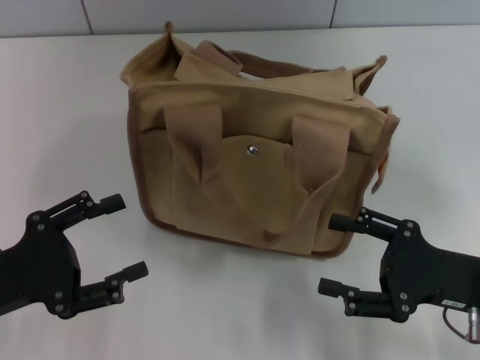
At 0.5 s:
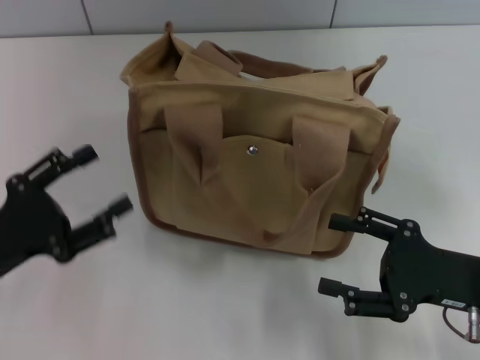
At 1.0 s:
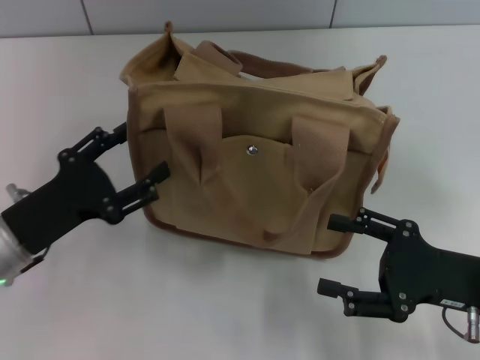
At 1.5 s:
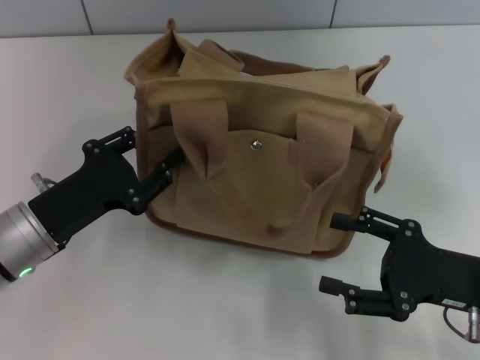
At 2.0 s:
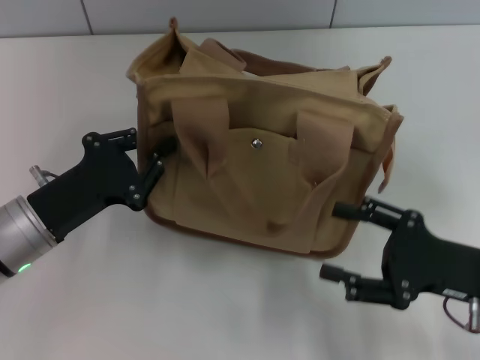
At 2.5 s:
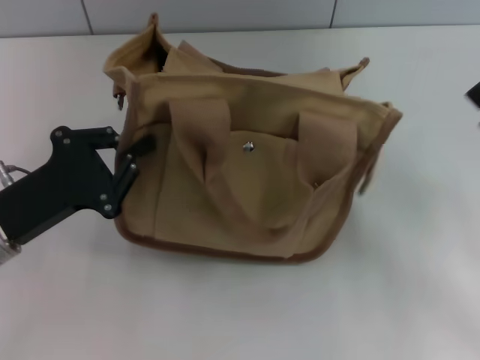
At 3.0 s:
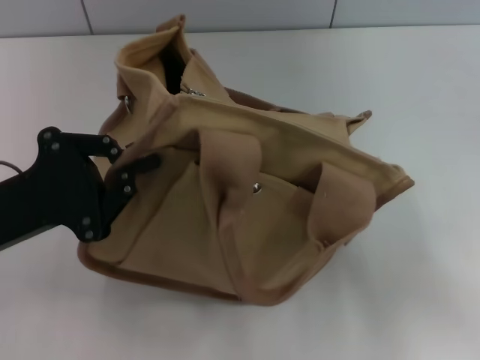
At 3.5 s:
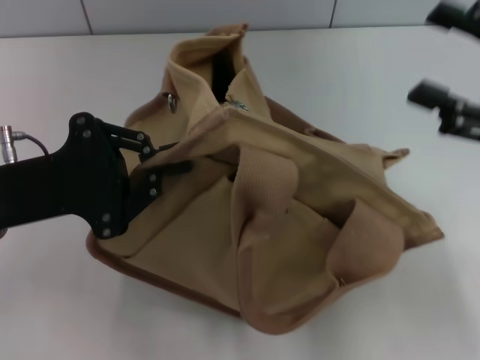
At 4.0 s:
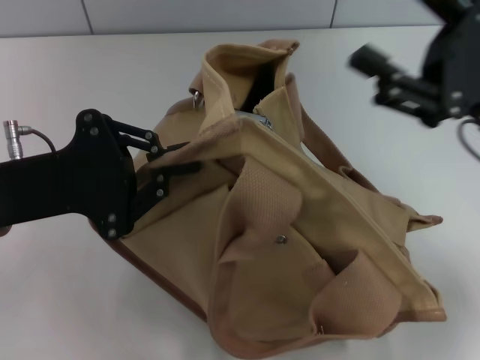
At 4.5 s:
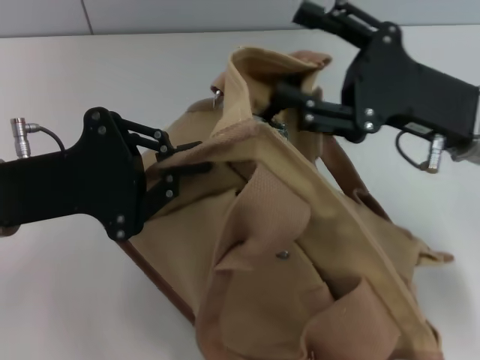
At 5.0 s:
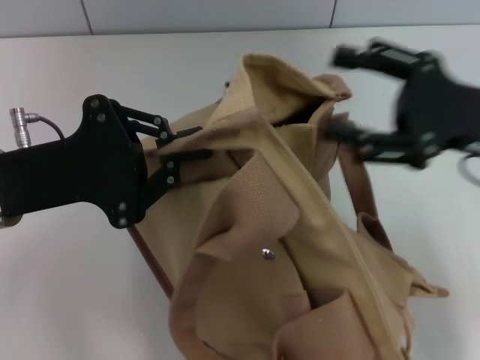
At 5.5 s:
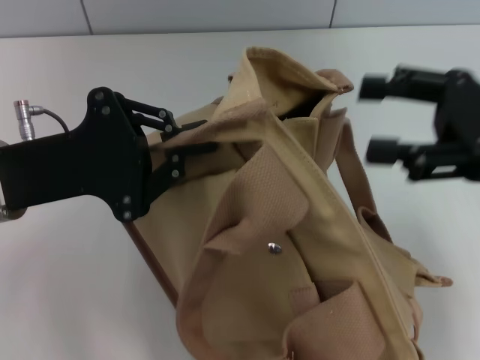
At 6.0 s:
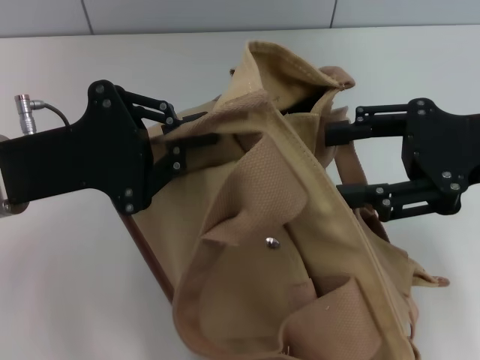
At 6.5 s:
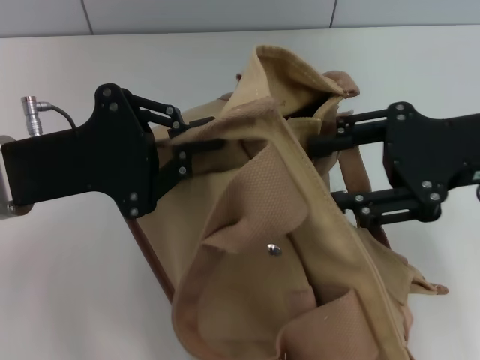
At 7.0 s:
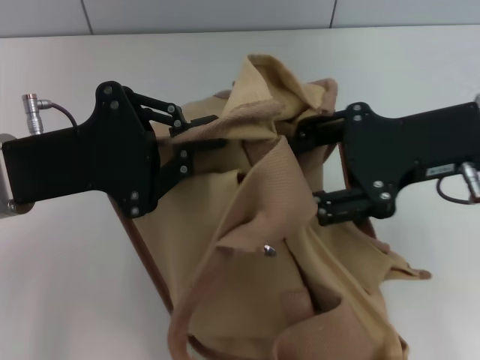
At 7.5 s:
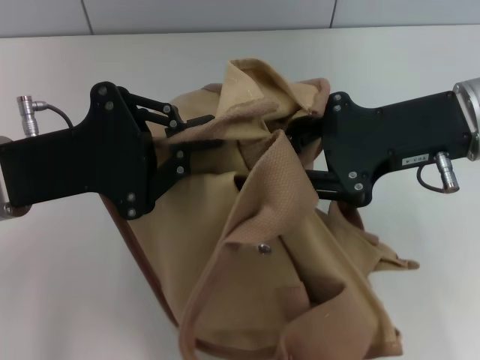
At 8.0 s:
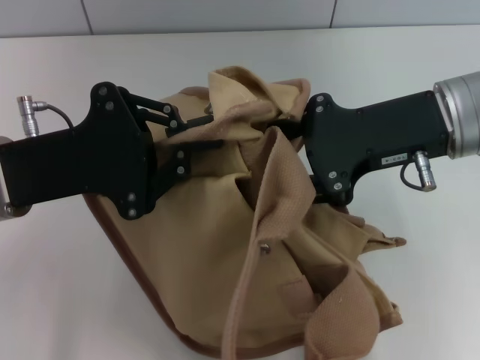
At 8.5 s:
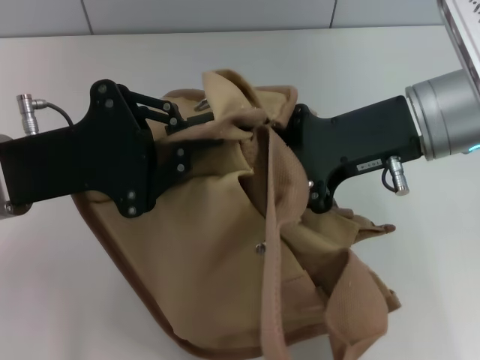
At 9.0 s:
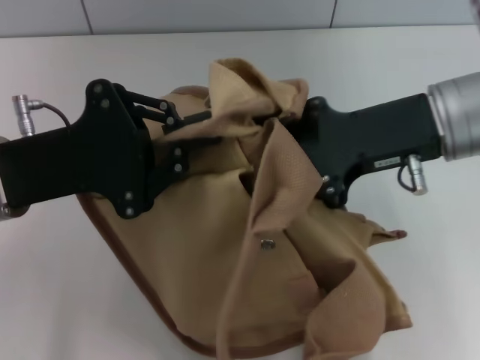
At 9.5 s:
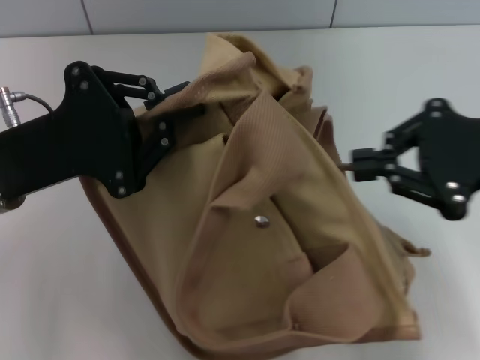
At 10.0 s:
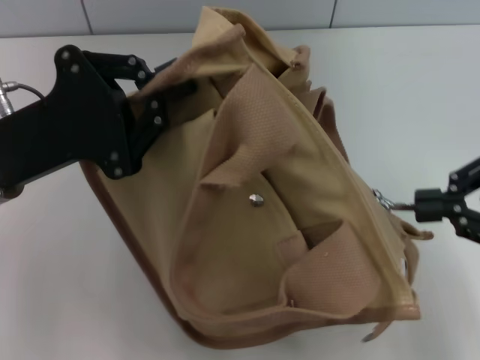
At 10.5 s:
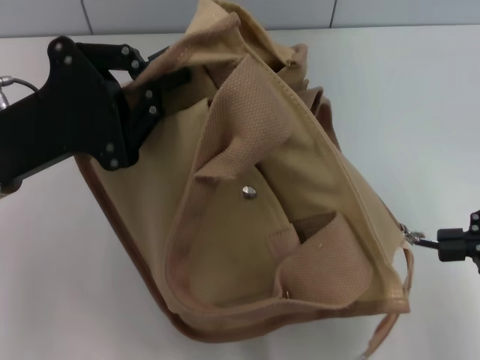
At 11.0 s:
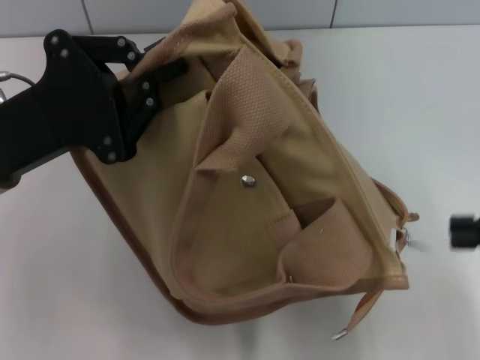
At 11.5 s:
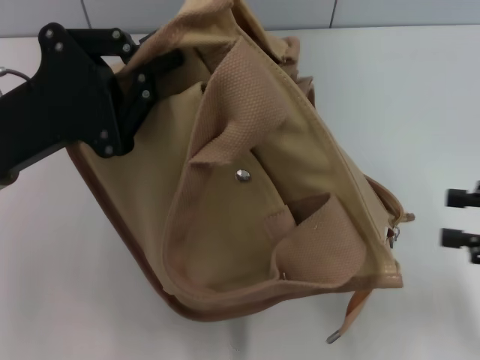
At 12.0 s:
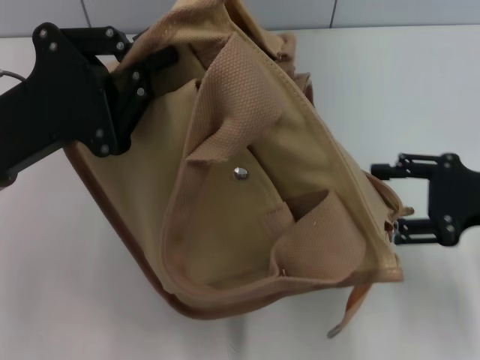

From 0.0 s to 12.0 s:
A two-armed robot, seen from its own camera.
Step, from 0.0 s to 11.0 s: Pull open the zipper with your right hand.
From 0.0 s to 2.0 s: The left gripper shifts some 10 cm forward and to the right, and closes its fingers.
From 2.0 s to 4.0 s: The right gripper goes some 15 cm upward and forward; the left gripper shifts approximately 10 cm upward.
From 6.0 s to 8.0 s: The right gripper travels to the left by roughly 5 cm, and closes its fingers.
From 8.0 s to 10.0 s: The right gripper is displaced to the right and backward by approximately 15 cm, and closes.
From 10.0 s to 12.0 s: The right gripper travels downward by some 5 cm, and opens up.

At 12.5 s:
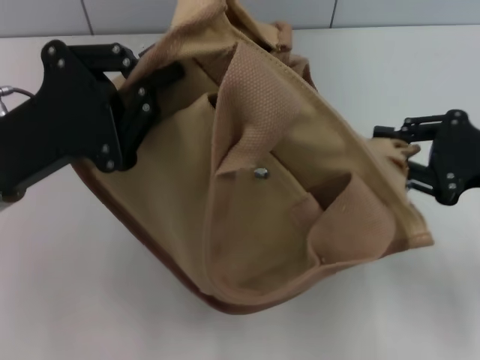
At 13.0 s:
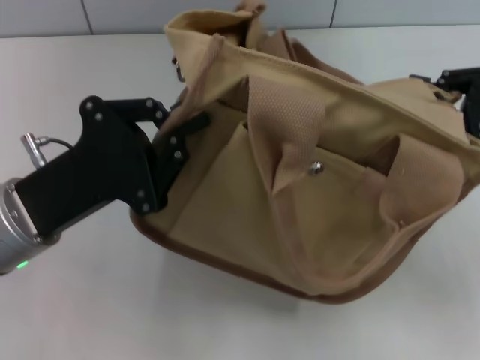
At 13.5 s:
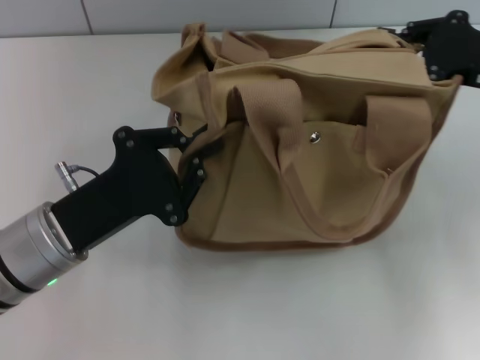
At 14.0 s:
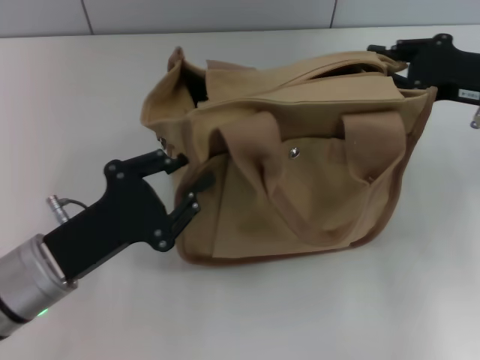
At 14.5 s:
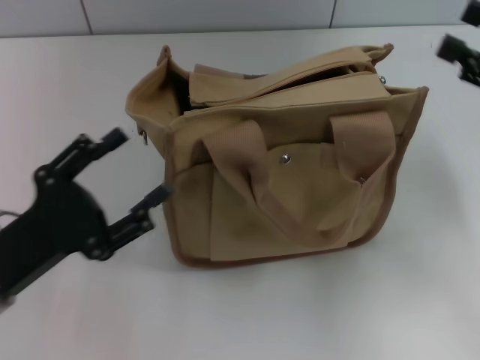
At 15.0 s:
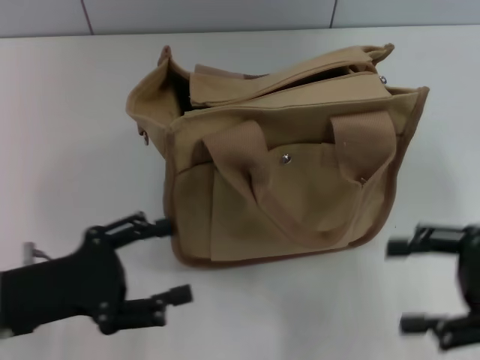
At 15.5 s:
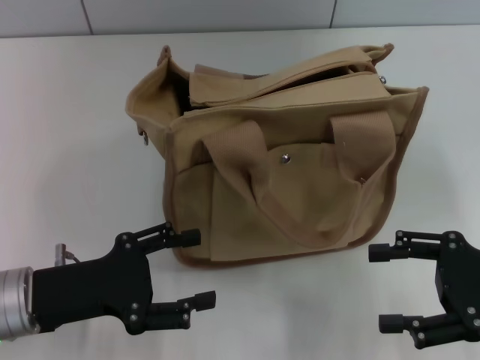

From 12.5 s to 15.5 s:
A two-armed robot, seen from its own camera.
From 12.5 s to 14.0 s: The right gripper is displaced forward by about 5 cm; the left gripper travels downward by about 10 cm.
From 14.0 s to 15.5 s: The right gripper heads backward and downward, covering about 15 cm, and opens its fingers. Meanwhile the left gripper opens up.
